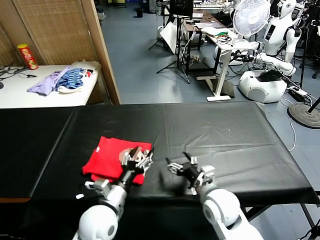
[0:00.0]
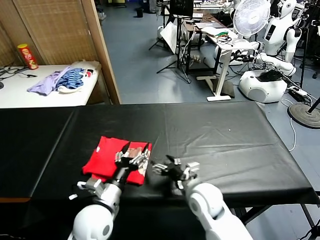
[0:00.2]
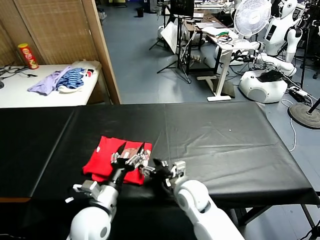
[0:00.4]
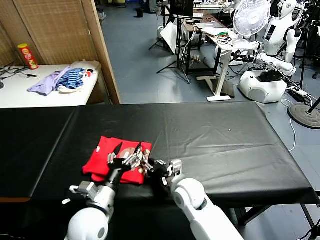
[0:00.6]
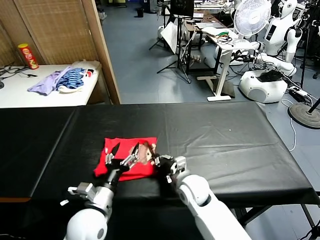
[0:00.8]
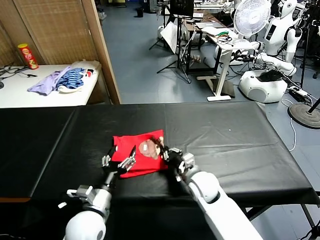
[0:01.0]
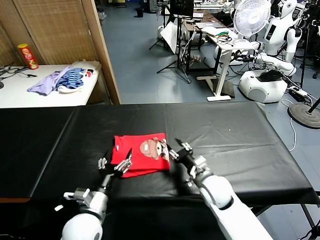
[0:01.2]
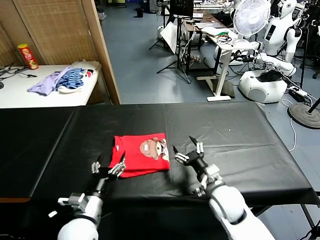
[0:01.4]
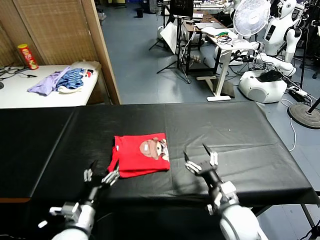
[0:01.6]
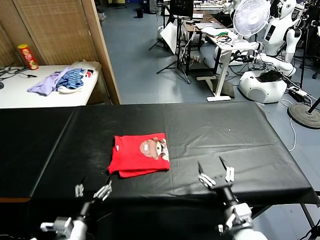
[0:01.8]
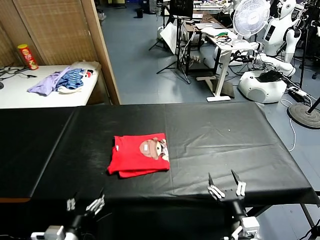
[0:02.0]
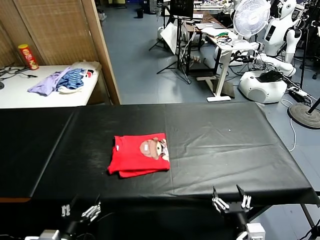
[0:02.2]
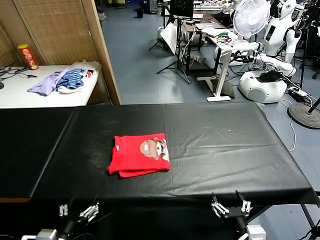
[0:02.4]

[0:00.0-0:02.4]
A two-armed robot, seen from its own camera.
Task of the whole recording: fold and organize the clothes.
Step, 0:00.0 to 0:01.2: Drag the clothes to the center of the table.
0:00.0 to 0:01.2: The right gripper shifts approximately 5 cm forward, moves about 10 cm to the left and comes back, and closes its fingers.
0:01.2 to 0:02.4: The right gripper heads backward, covering approximately 25 cm, and opens; the left gripper shifts roughly 15 cm backward and to the left.
